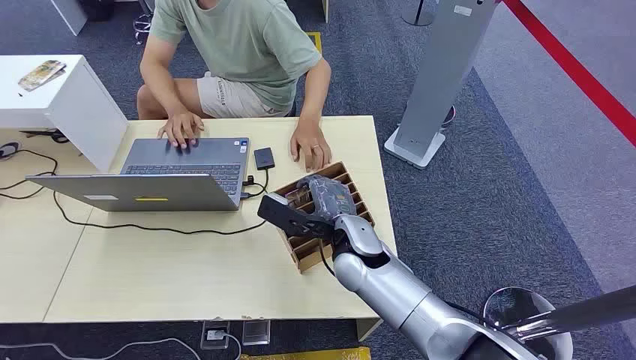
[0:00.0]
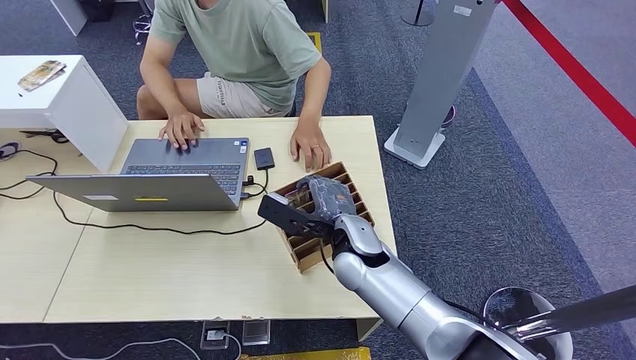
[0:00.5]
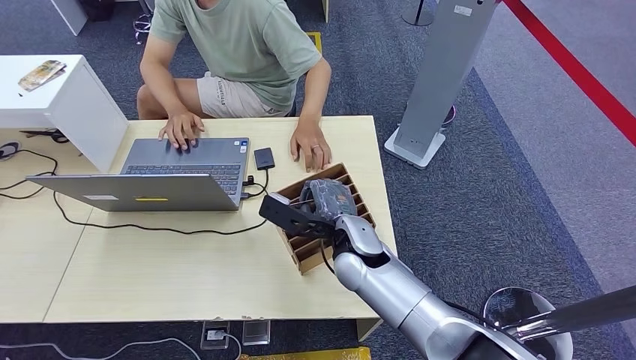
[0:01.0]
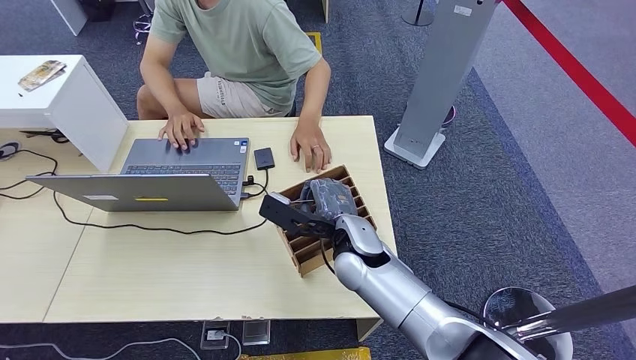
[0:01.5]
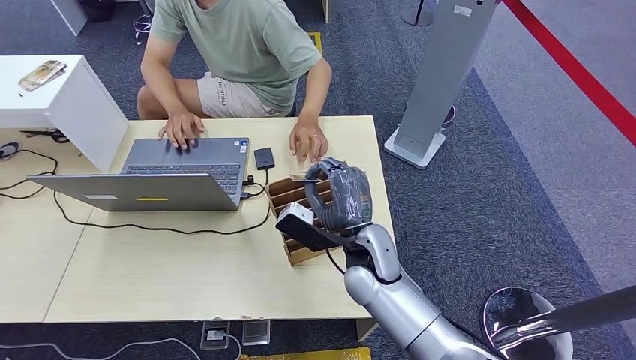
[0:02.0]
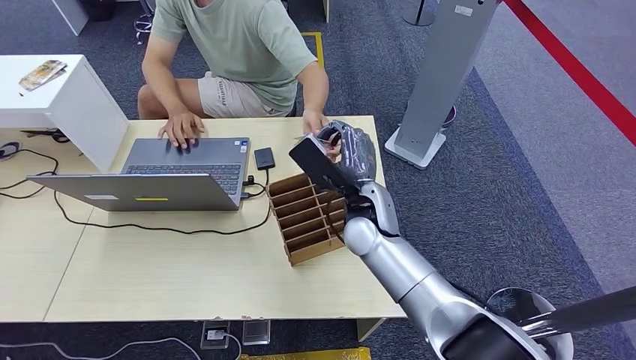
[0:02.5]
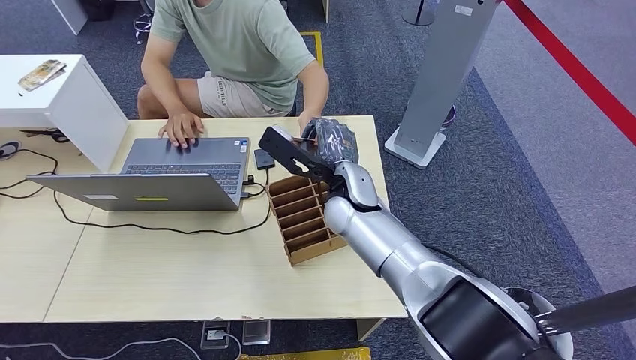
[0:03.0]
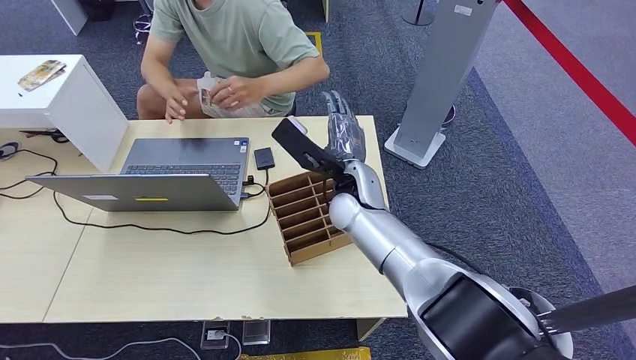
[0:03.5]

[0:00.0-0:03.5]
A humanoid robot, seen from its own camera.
Step, 0:03.0 to 0:03.5: Hand the room card to the target.
0:02.0 to 0:03.5: The right hand shifts roughly 10 cm forward and upward.
